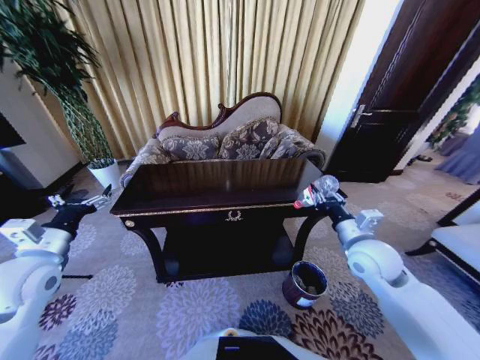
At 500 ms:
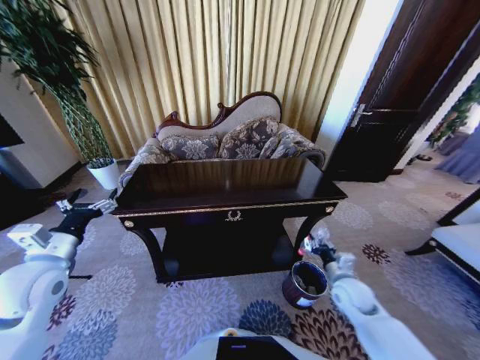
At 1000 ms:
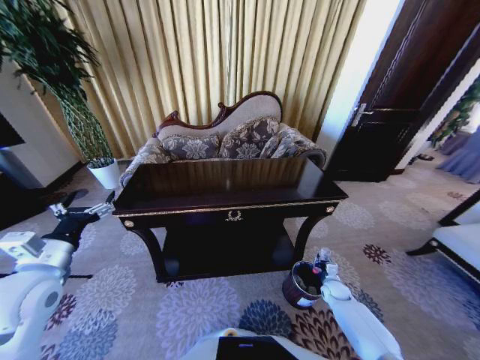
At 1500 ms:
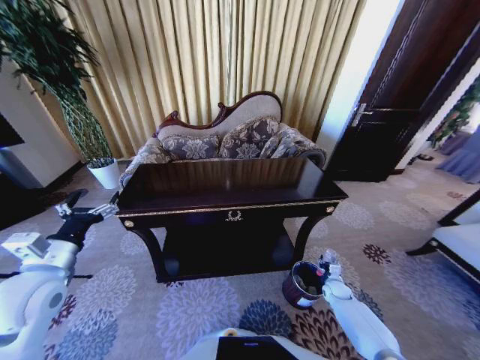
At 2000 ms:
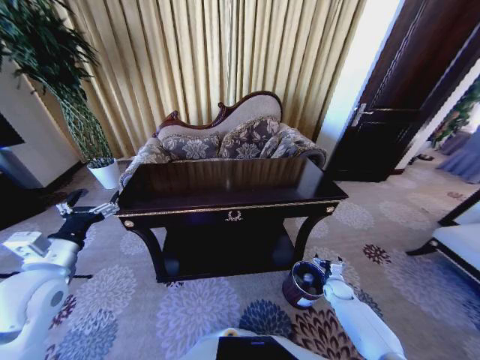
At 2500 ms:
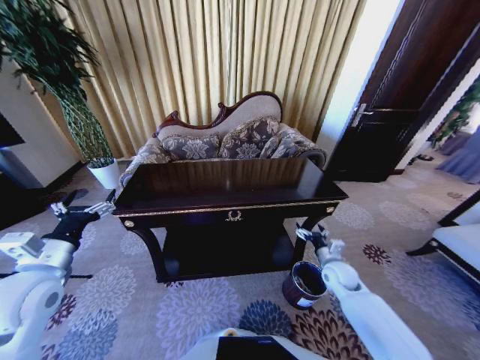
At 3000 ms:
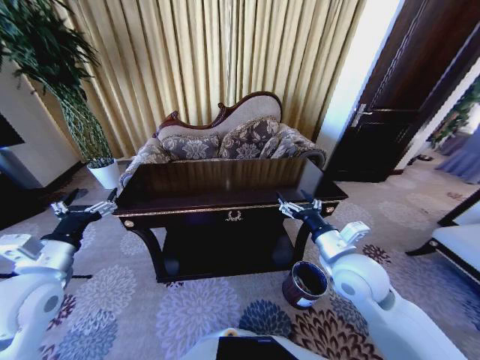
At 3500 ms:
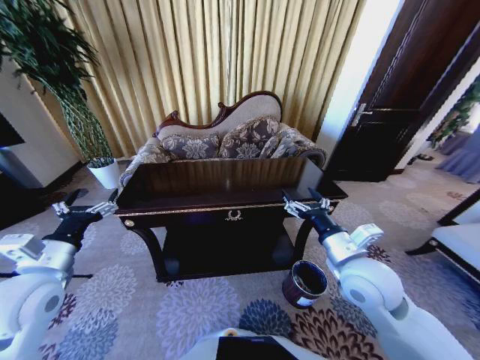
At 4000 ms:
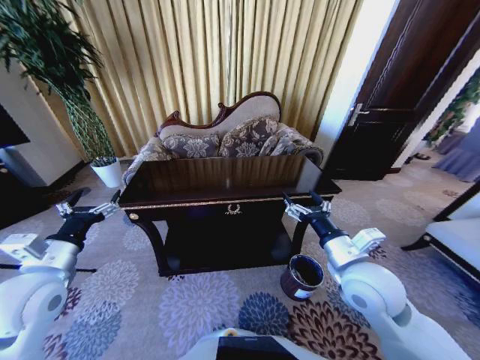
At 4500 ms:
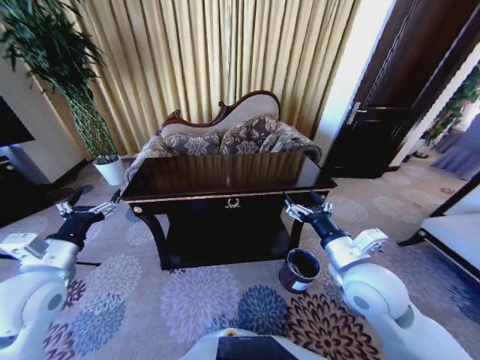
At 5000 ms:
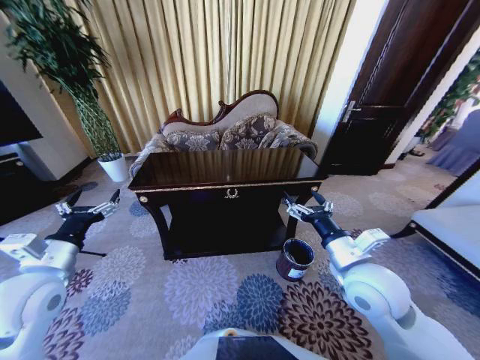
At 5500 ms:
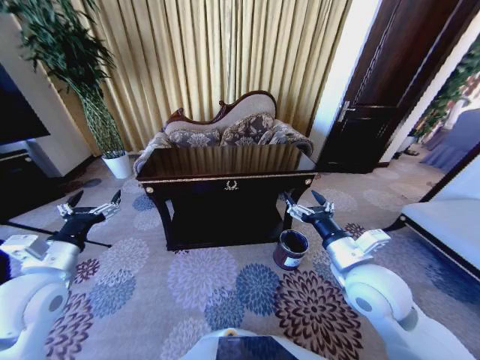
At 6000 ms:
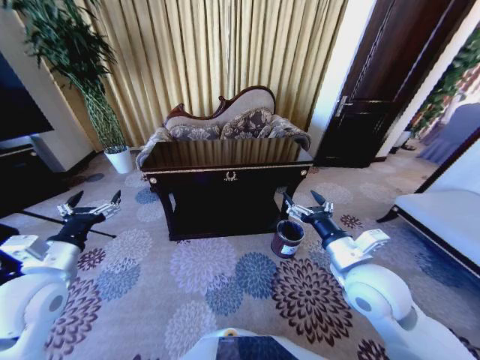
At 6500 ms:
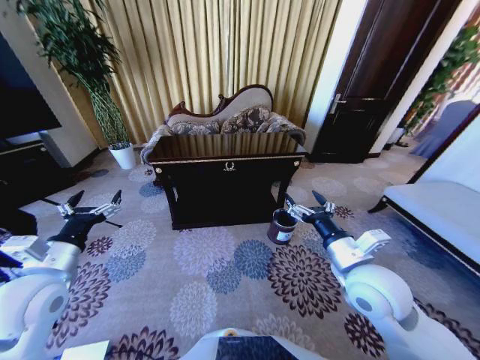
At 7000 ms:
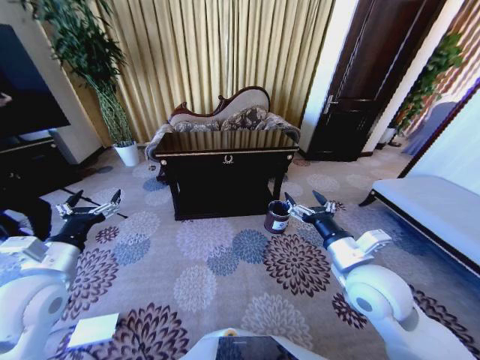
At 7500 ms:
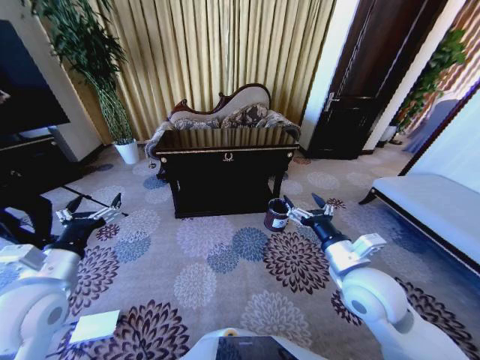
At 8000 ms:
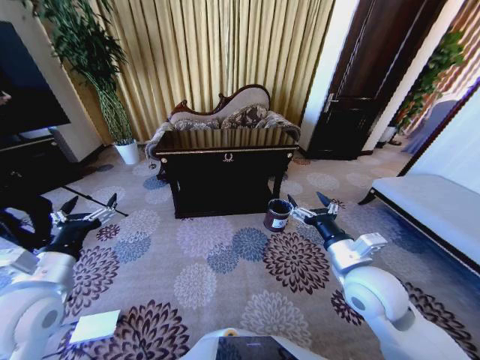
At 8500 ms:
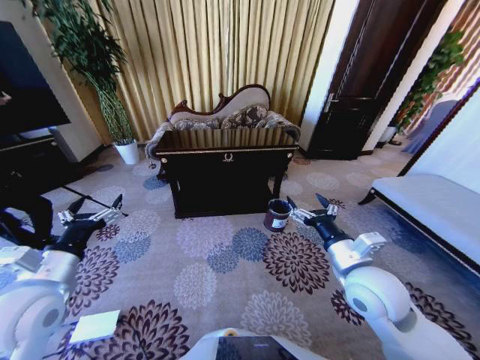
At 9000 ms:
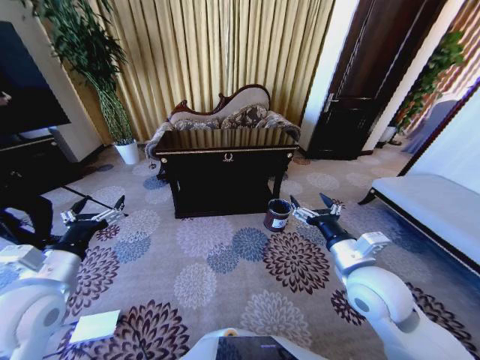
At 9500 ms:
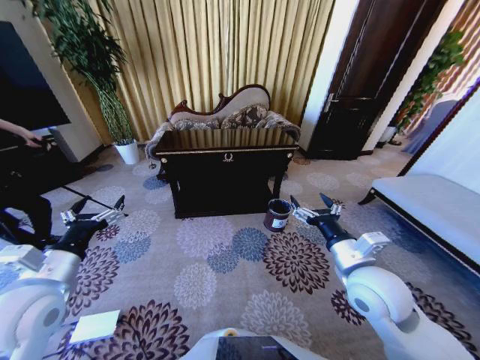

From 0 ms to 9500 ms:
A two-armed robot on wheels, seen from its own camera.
Task of the whole recording: Move to the front of the table and place the trash on the table into the trash bin.
From 0 ms to 2000 ms: The right gripper heads downward, covering approximately 35 cm, and opens up.
From 2000 ms to 4000 ms: The right gripper goes some 40 cm upward and to the left.
From 7500 ms to 9500 ms: The grippers move only a little.

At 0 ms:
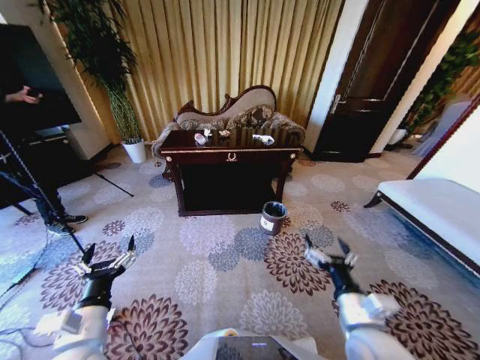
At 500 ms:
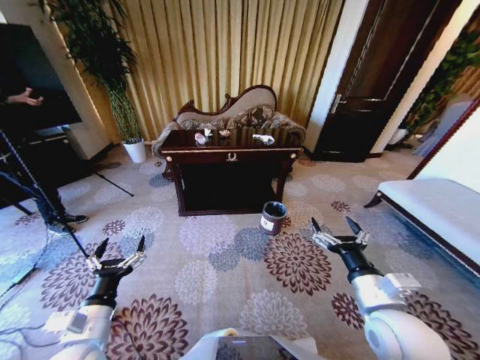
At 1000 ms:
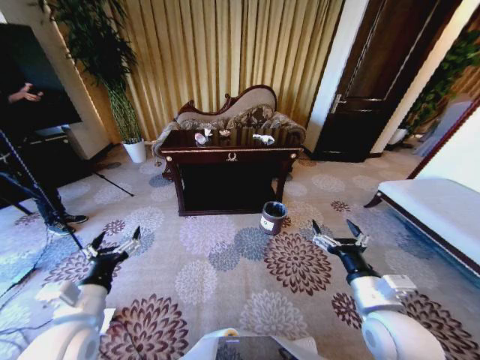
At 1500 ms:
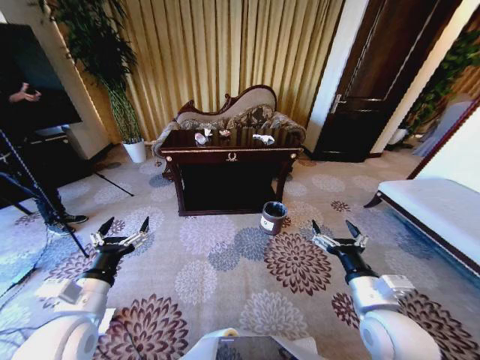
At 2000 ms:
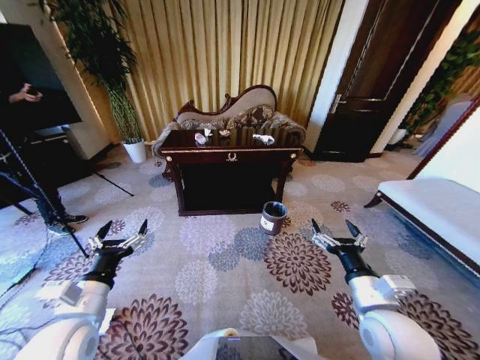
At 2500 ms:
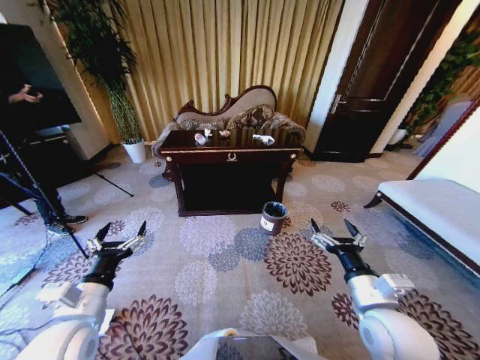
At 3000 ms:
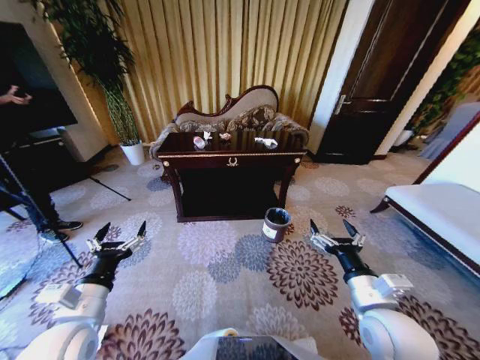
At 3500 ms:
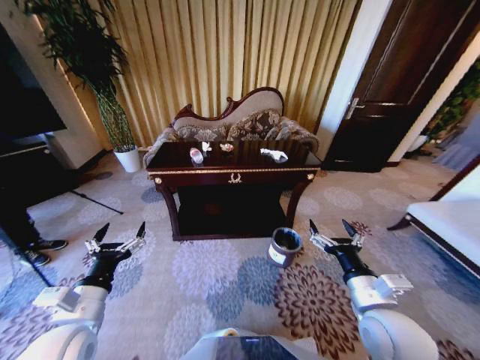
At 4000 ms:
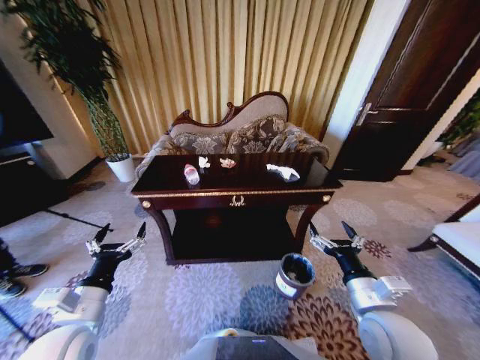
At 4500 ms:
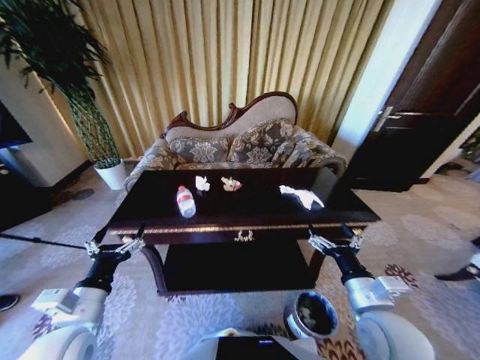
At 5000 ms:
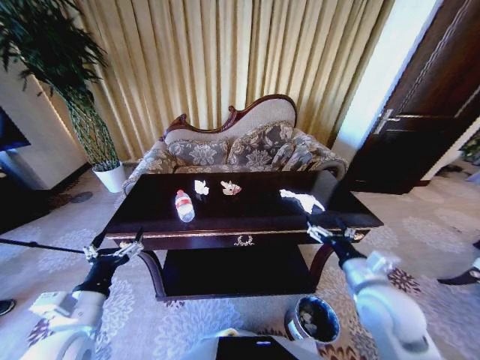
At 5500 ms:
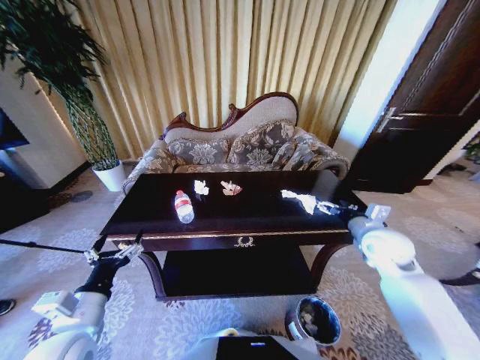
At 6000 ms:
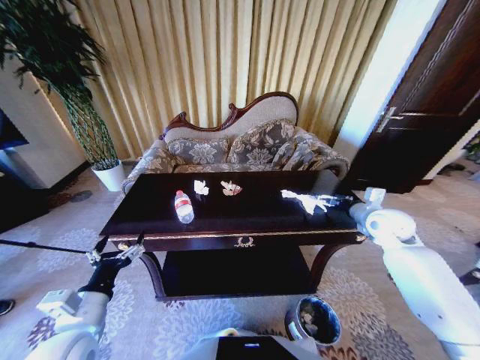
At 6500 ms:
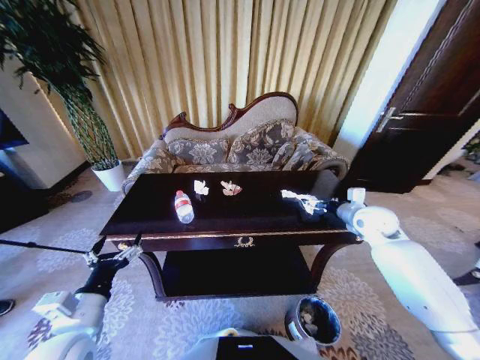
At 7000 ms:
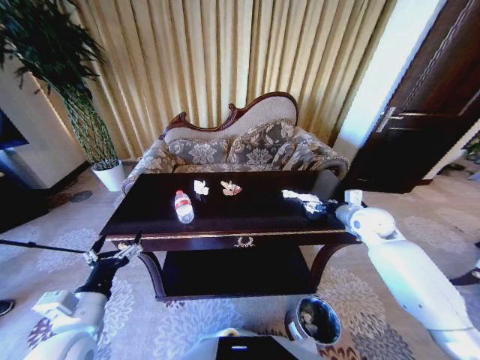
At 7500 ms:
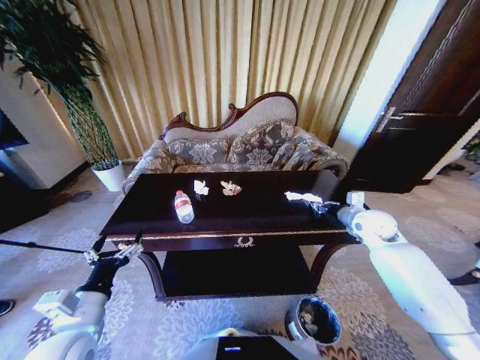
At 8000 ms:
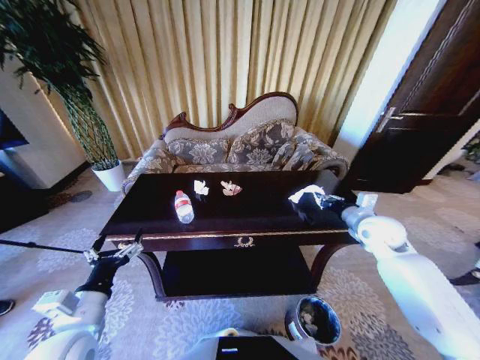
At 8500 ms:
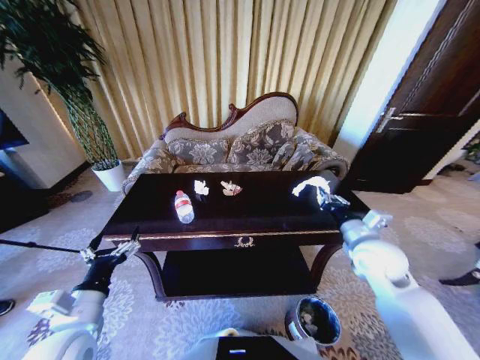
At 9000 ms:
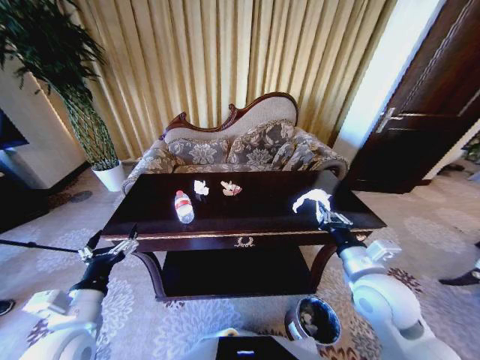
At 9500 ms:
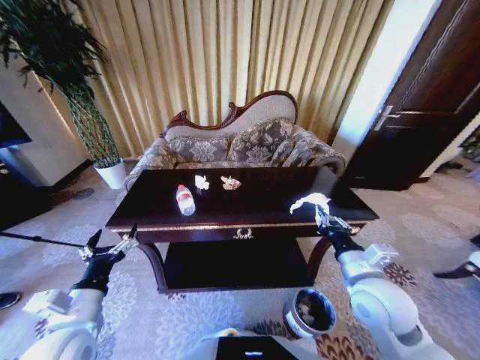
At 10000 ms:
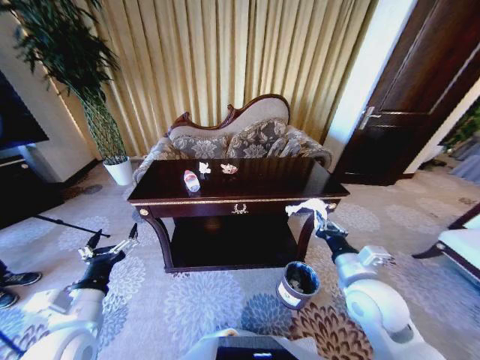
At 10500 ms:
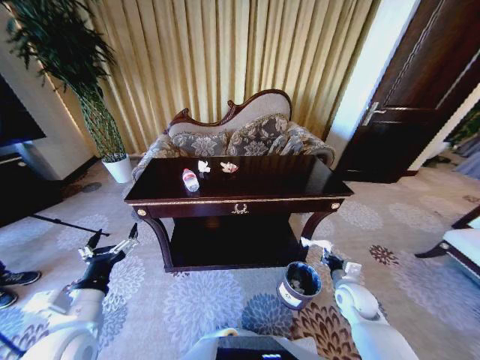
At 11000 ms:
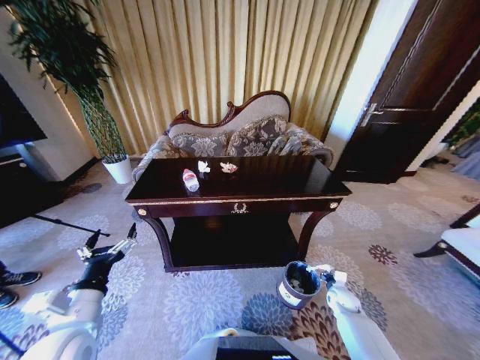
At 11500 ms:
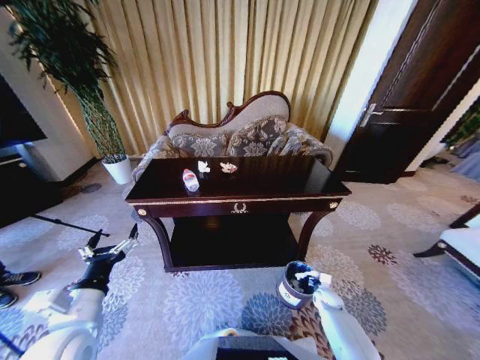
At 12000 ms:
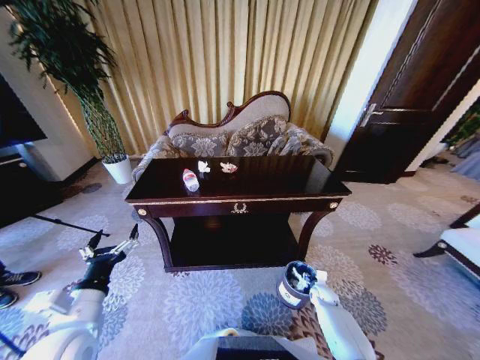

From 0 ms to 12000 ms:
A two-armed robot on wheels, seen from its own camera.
Task of the whole recording: Move to the front of the table and place the trash on the table into the trash bin.
From 4000 ms to 6000 ms: The right gripper heads forward and to the right, covering roughly 30 cm.
From 6000 ms to 8000 ms: The right gripper closes its fingers.
From 8000 ms to 10000 ms: The right gripper heads backward and to the left, covering roughly 20 cm.
From 10000 ms to 12000 ms: The right gripper moves downward, about 35 cm, and opens up.

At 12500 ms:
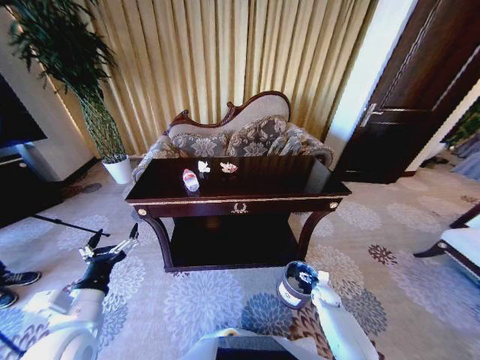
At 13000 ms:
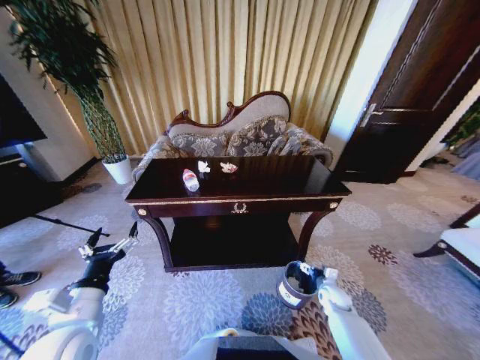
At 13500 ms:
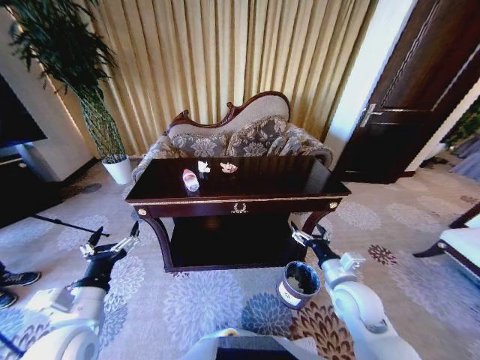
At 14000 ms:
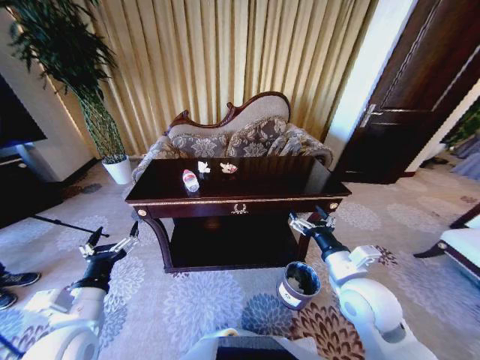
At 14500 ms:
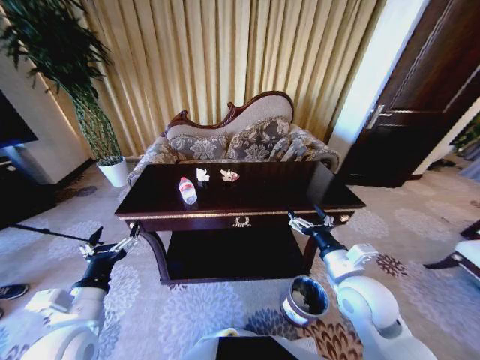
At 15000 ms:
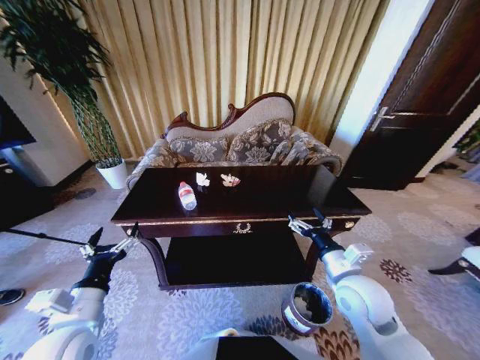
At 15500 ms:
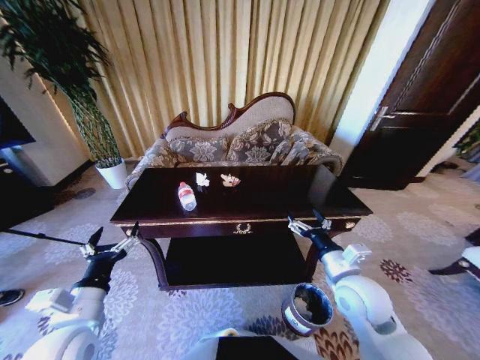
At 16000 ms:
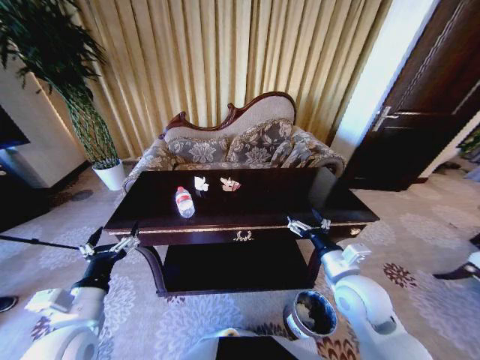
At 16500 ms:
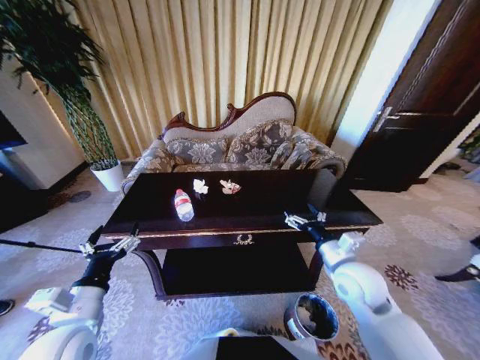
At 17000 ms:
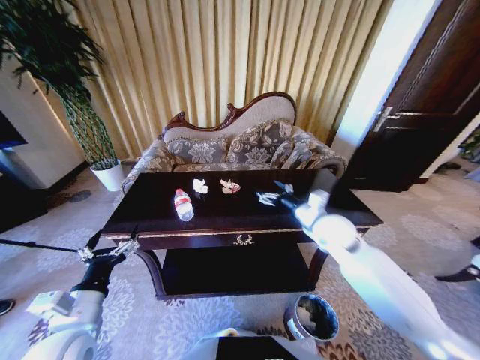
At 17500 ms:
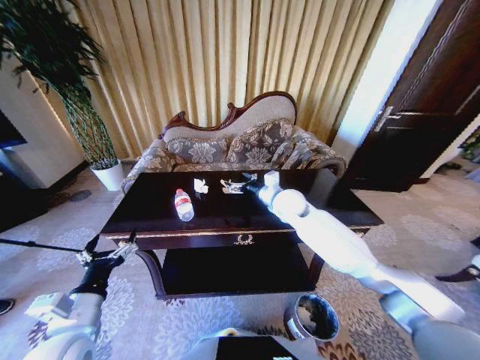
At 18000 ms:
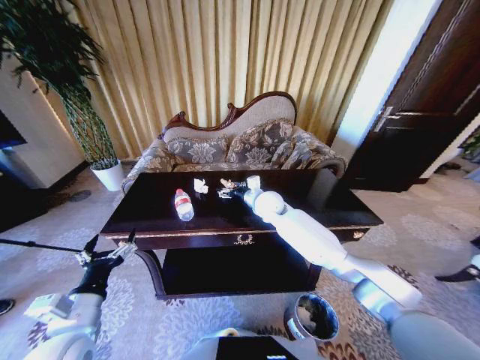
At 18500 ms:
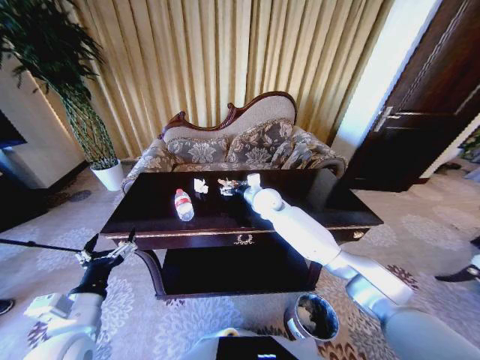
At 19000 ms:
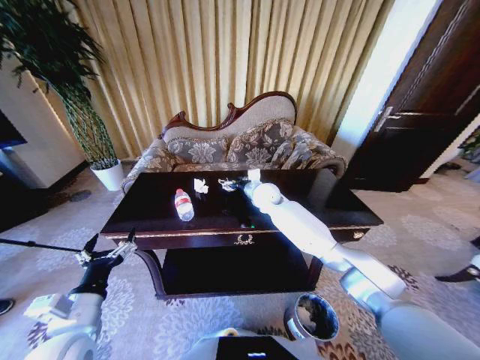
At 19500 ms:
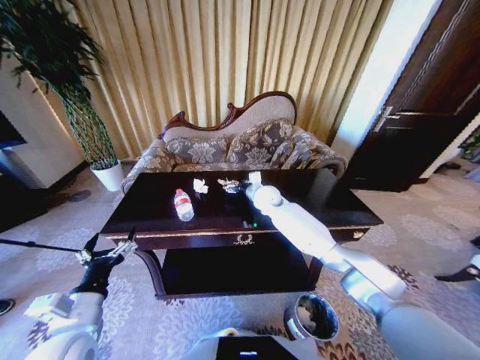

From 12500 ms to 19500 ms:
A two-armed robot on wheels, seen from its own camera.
Task of the whole recording: Move to the front of the table and place the trash on the table into the trash bin.
From 12500 ms to 14500 ms: The right gripper shifts about 35 cm upward.
From 16000 ms to 17500 ms: The right gripper moves forward, about 25 cm.
From 17500 ms to 19500 ms: The right gripper goes about 10 cm forward.
